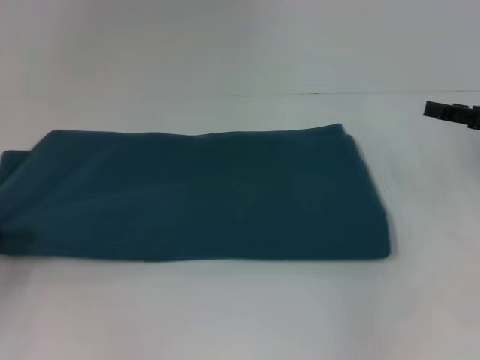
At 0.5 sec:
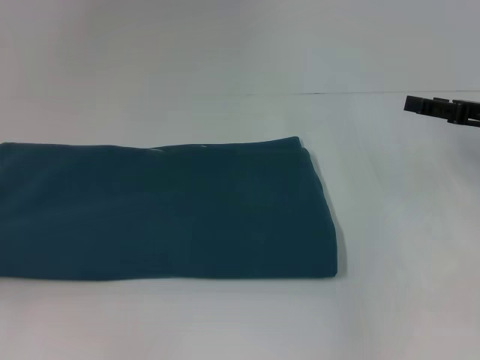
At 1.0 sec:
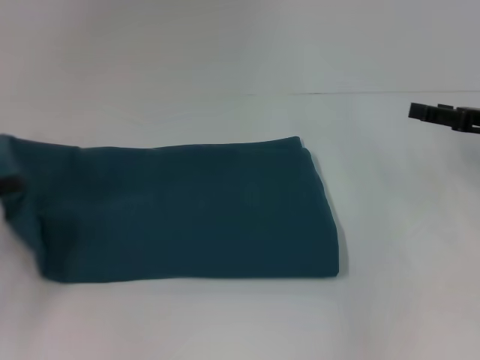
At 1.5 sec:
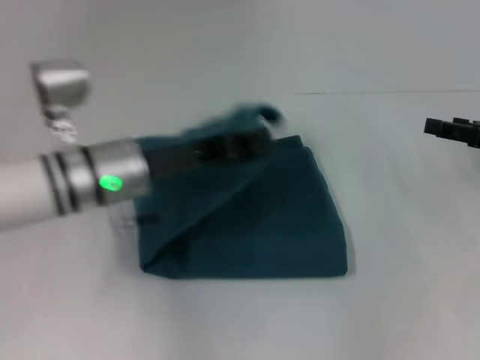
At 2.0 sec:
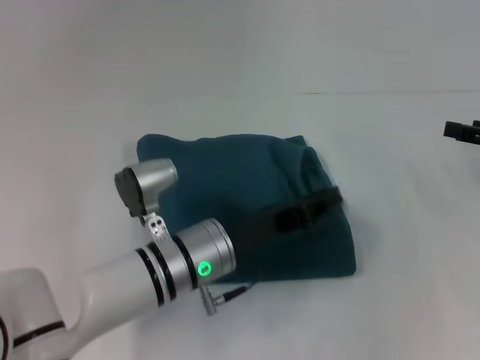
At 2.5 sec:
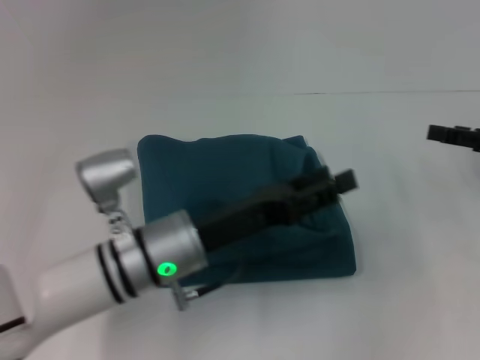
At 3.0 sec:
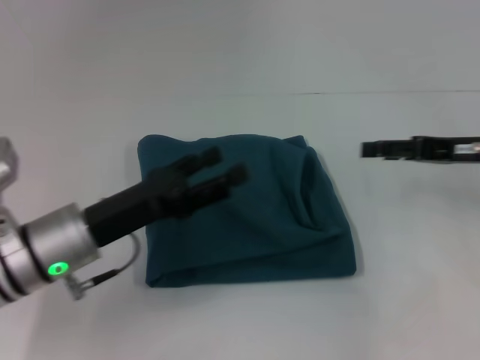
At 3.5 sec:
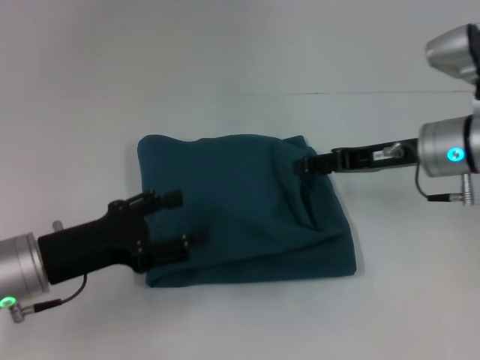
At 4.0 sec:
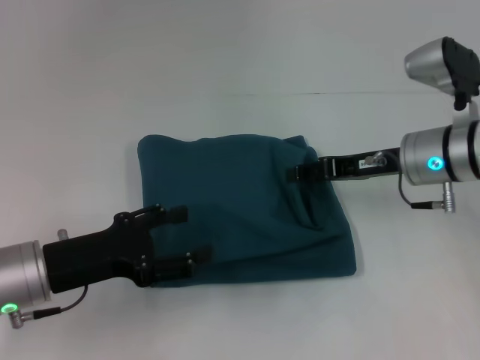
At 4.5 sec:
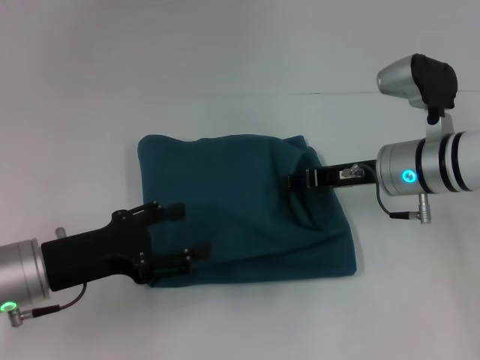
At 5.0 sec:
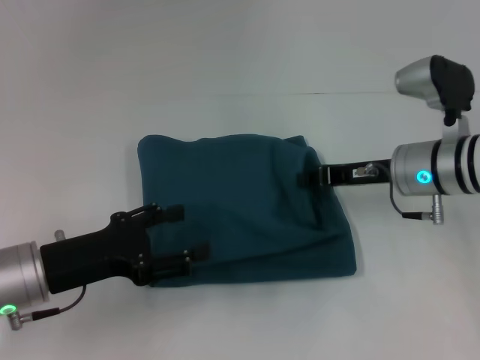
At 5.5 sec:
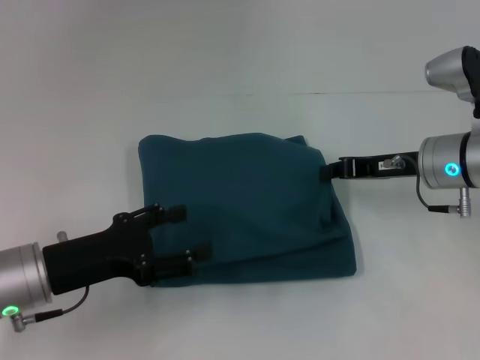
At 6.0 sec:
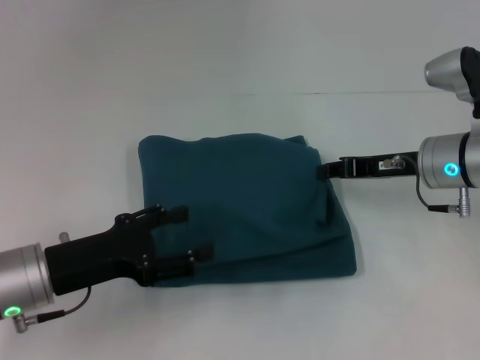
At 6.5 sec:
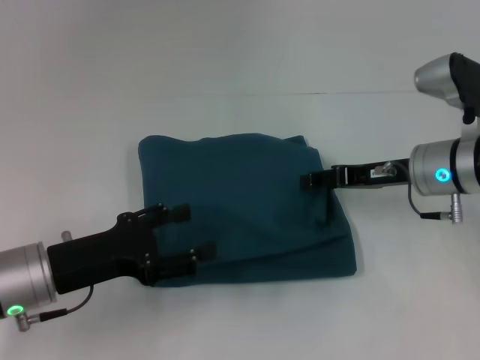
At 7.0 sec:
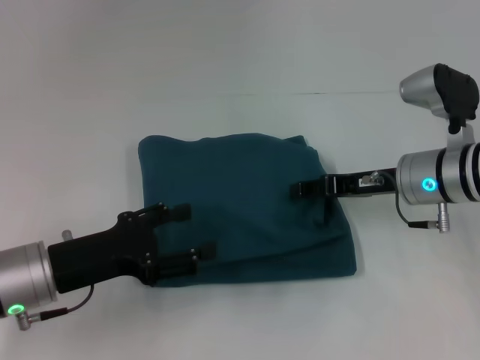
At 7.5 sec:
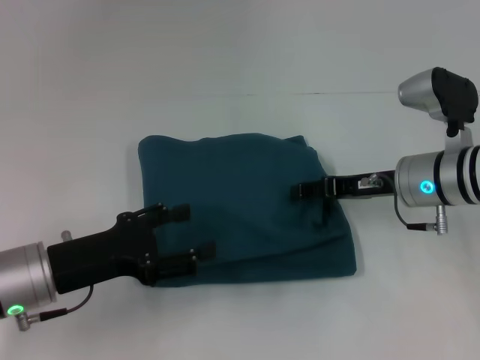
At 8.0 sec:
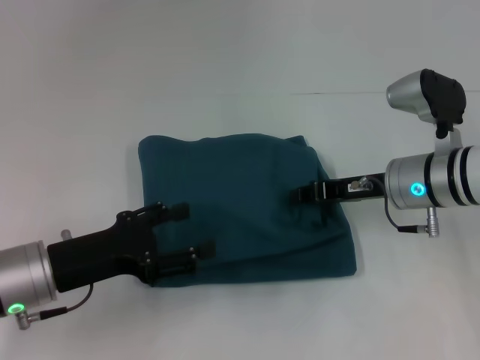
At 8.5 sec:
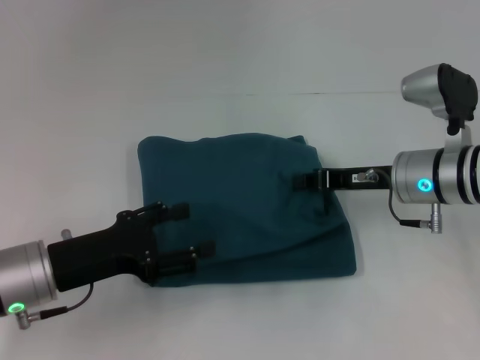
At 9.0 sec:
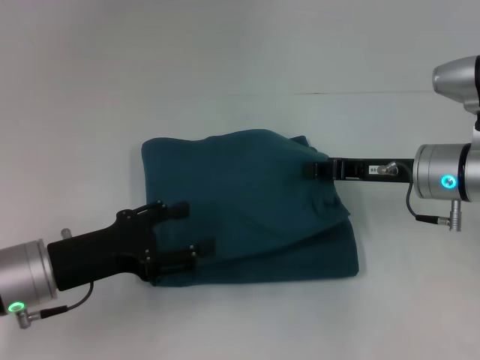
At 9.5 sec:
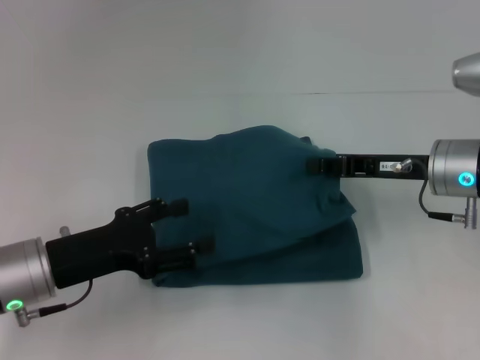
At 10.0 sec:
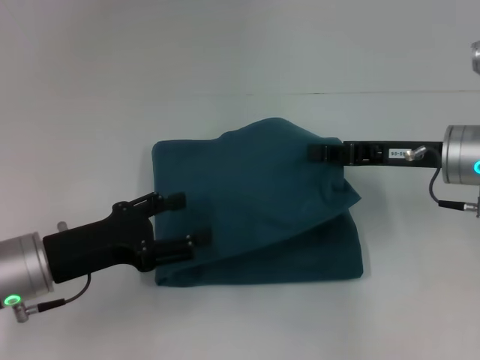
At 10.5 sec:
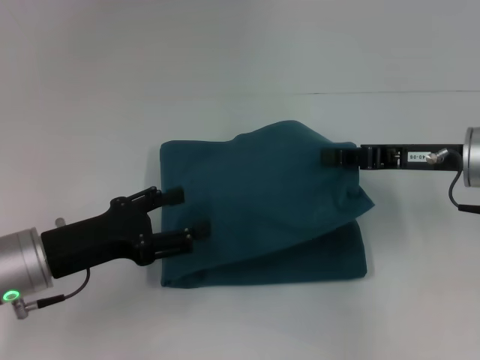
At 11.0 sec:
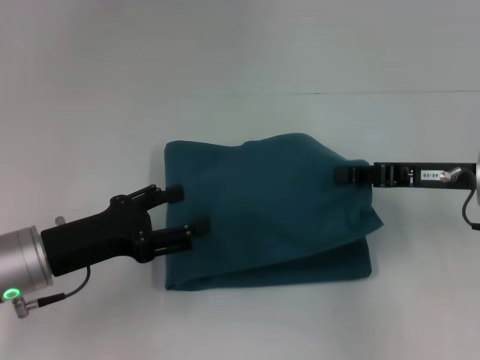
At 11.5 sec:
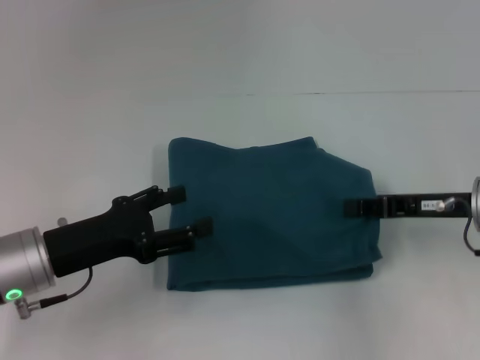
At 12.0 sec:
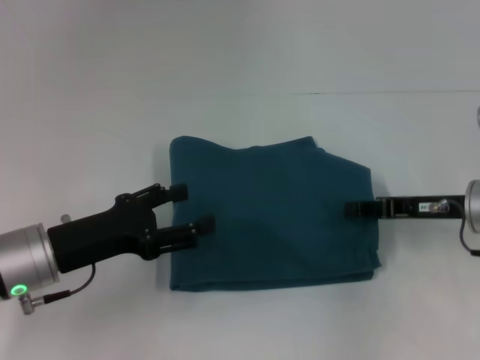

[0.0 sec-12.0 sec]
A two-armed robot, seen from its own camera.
Step, 0.0 sec to 2.0 sec: Fold the clothes to the left.
0.0 sec to 2.0 sec: The left gripper goes approximately 30 cm to the right.
2.0 sec to 4.0 sec: Both grippers move to the left, about 15 cm. The left gripper opens its fingers.
4.0 sec to 6.0 sec: The right gripper closes its fingers.
6.0 sec to 8.0 sec: The grippers move only a little.
8.0 sec to 10.0 sec: The right gripper ends up some 5 cm from where it was.
10.0 sec to 12.0 sec: The right gripper changes place by some 5 cm.

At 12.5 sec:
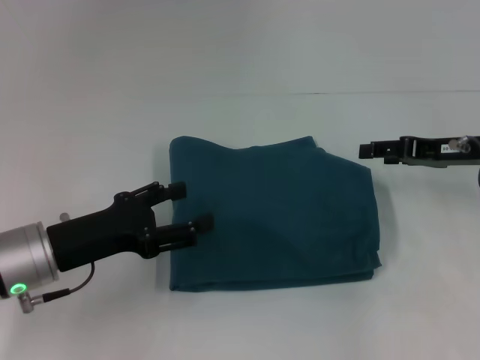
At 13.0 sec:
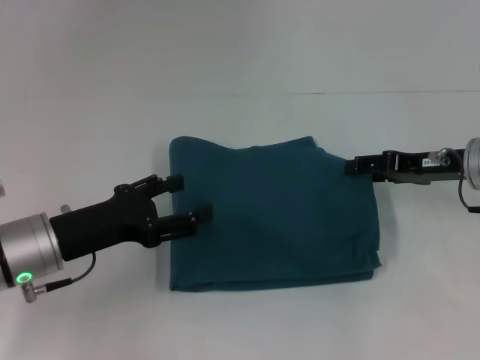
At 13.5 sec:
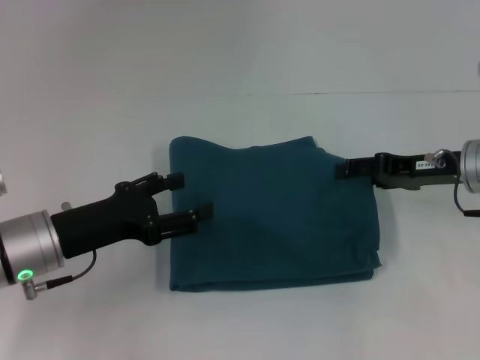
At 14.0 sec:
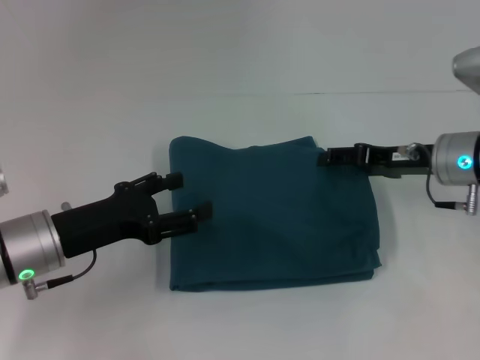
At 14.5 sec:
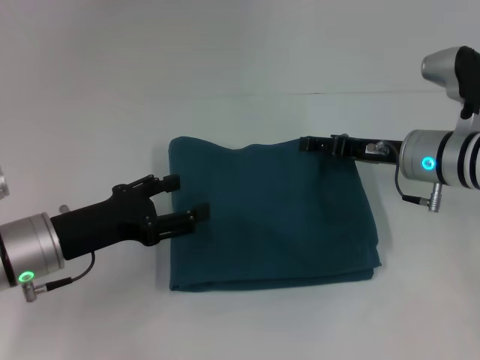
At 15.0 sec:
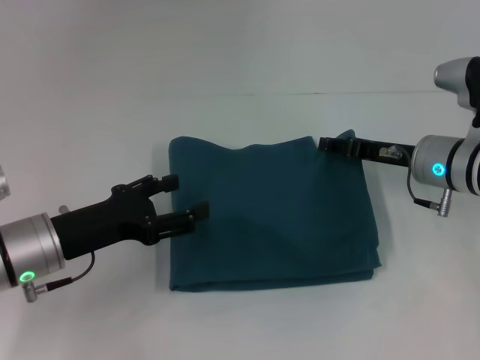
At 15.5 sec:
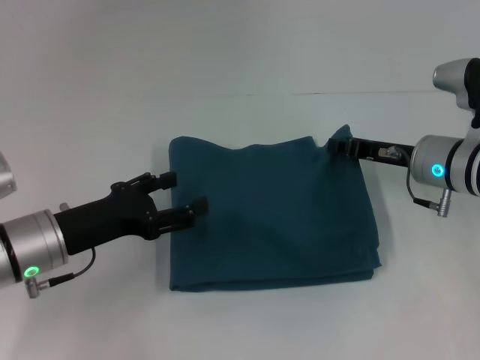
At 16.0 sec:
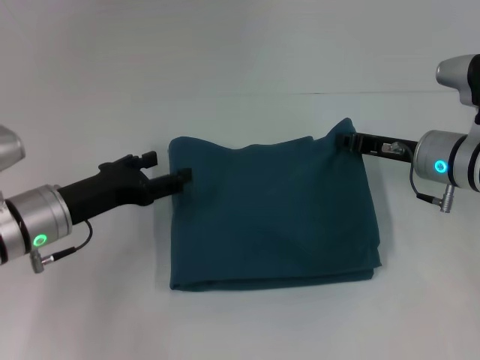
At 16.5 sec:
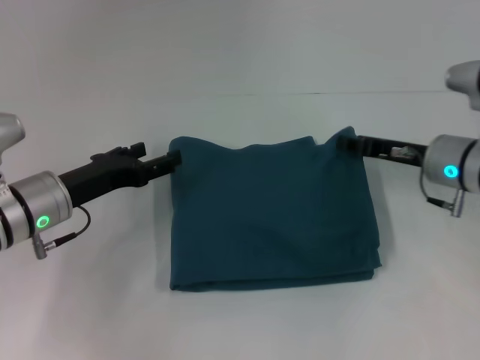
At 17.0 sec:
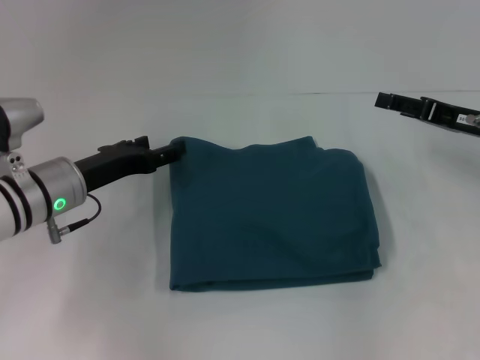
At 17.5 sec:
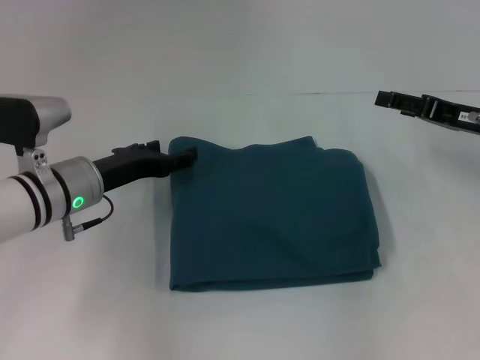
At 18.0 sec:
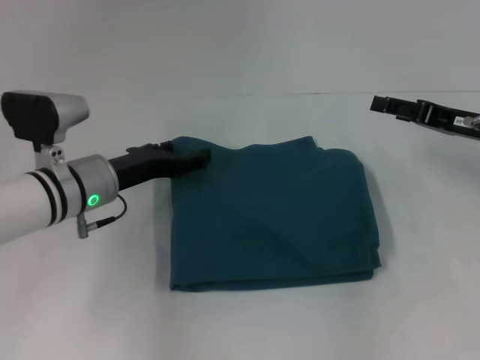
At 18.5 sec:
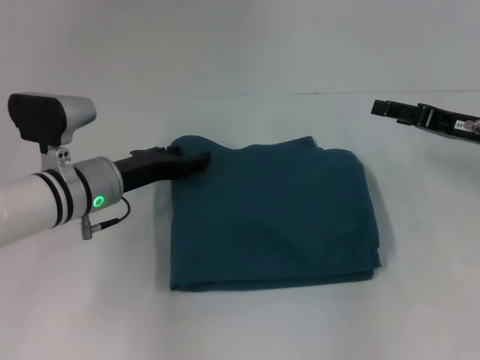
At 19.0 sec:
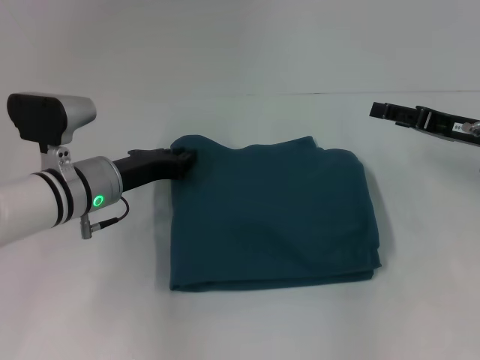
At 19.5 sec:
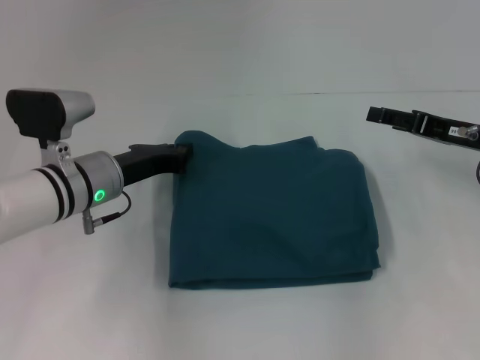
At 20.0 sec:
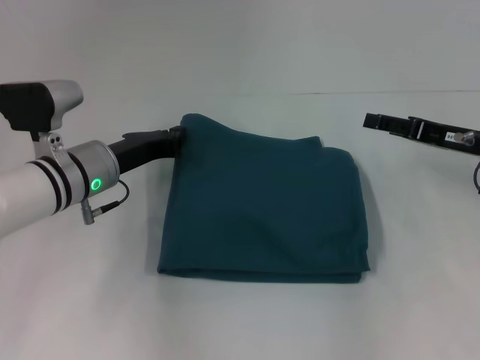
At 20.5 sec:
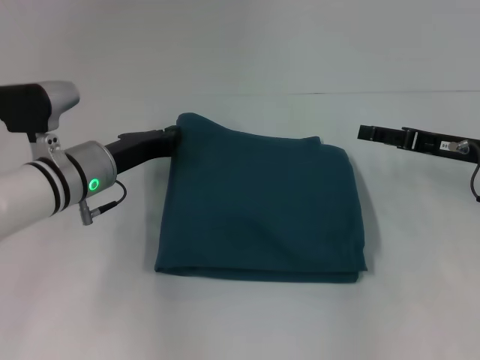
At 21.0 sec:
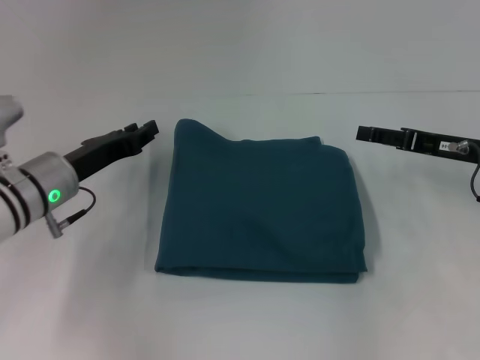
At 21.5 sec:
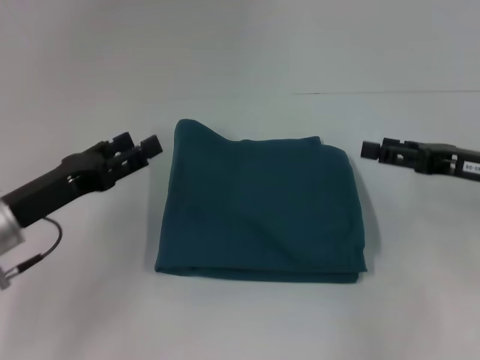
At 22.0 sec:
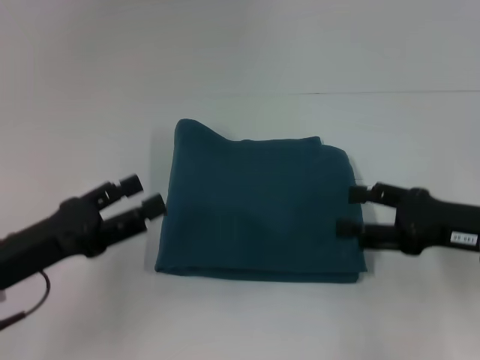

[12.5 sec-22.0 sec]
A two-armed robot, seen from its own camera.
12.5 sec to 14.5 sec: The right gripper travels to the left by roughly 10 cm.
14.5 sec to 16.5 sec: The right gripper closes its fingers.
16.5 sec to 18.0 sec: The left gripper shifts by roughly 5 cm. The right gripper heads to the right, covering some 5 cm, and opens its fingers.
18.0 sec to 20.0 sec: The left gripper closes its fingers.
20.0 sec to 22.0 sec: The left gripper shifts about 15 cm backward and to the left, and opens up. Meanwhile the right gripper goes some 10 cm backward.

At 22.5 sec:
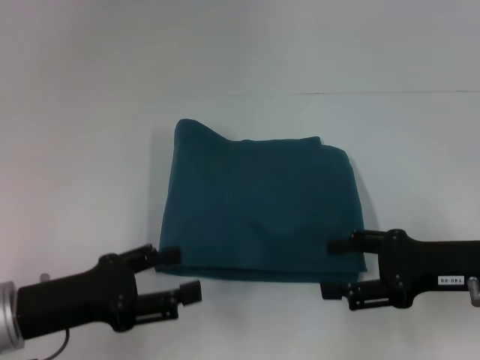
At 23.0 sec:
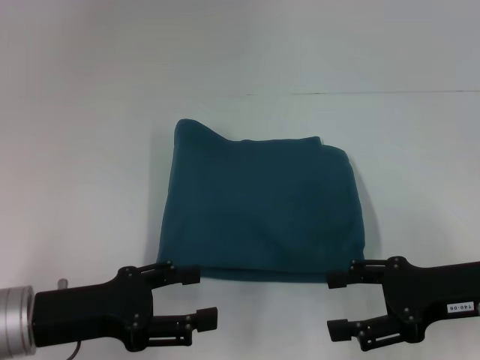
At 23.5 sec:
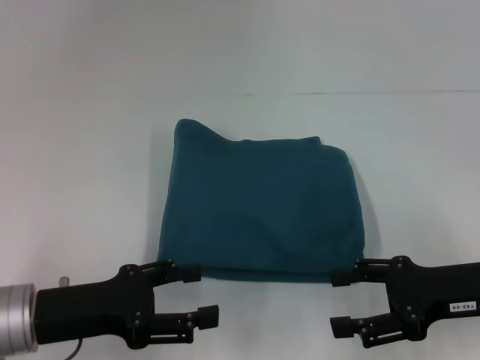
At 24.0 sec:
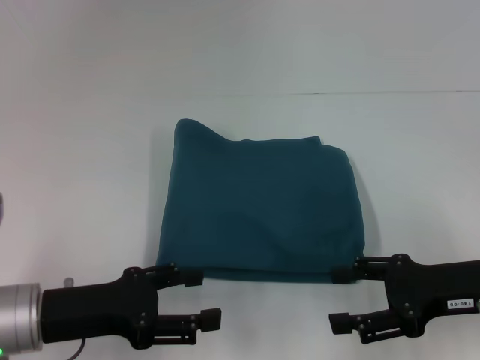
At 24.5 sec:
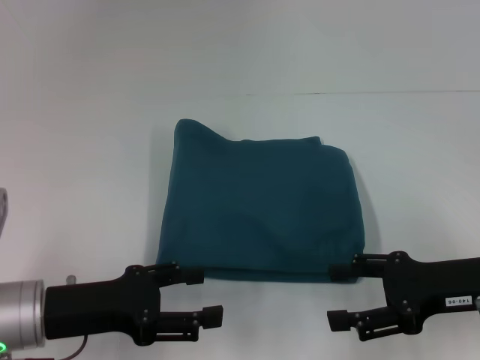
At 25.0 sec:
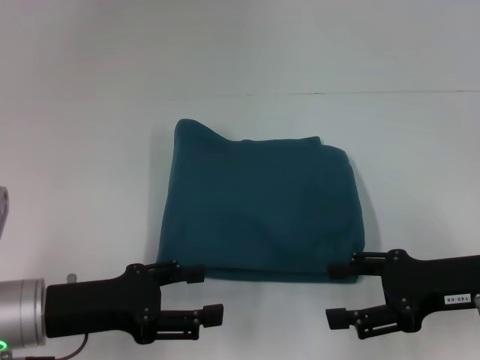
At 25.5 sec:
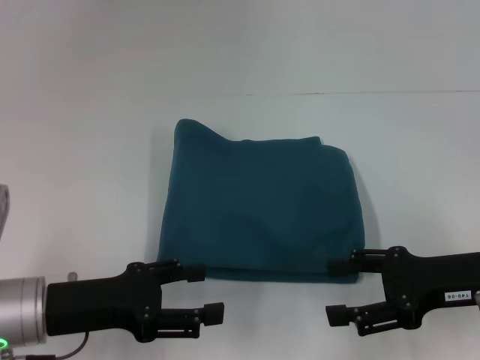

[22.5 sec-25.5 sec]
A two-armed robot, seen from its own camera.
22.5 sec to 24.0 sec: The grippers move only a little.
24.0 sec to 25.5 sec: Both grippers stay put.

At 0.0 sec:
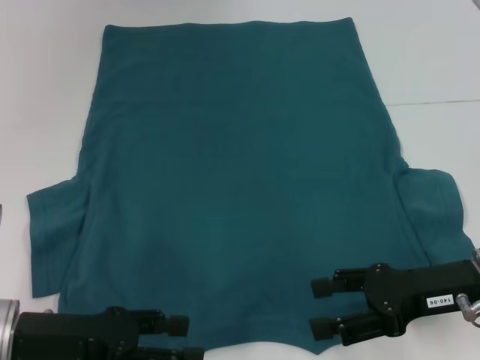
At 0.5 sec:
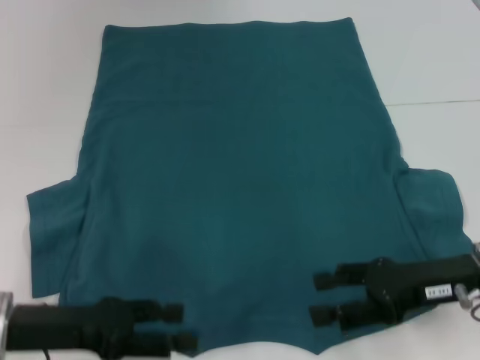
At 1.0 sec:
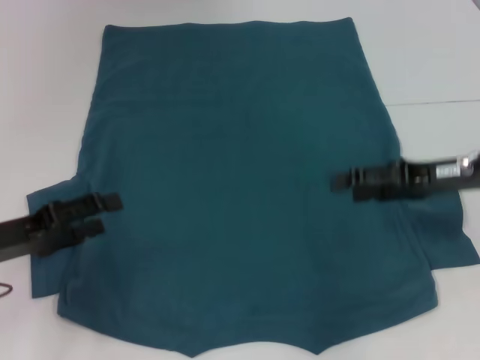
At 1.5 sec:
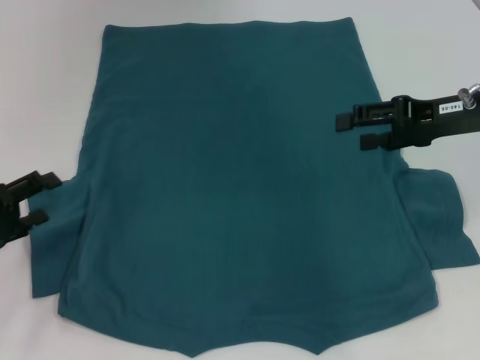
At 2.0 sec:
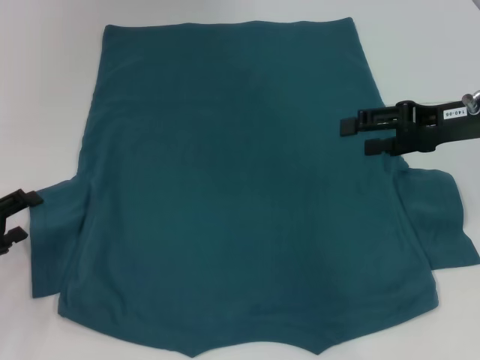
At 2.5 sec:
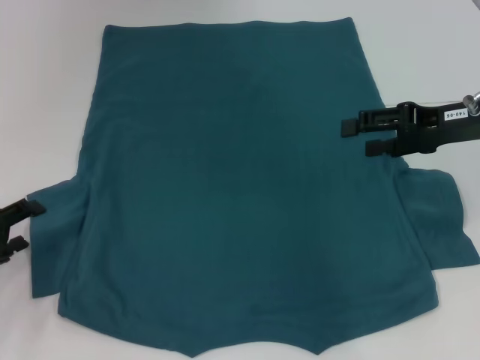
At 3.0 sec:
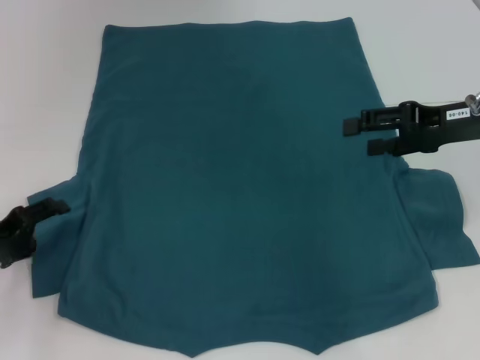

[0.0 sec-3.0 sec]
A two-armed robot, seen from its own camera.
0.0 sec to 1.5 sec: The left gripper goes roughly 10 cm to the left and forward, while the right gripper travels forward and upward by some 15 cm.
1.5 sec to 3.0 sec: There are only small adjustments of the grippers.
